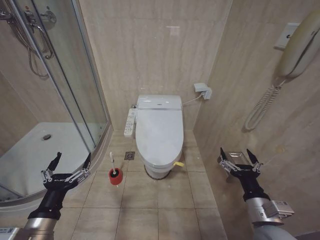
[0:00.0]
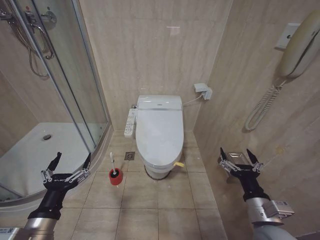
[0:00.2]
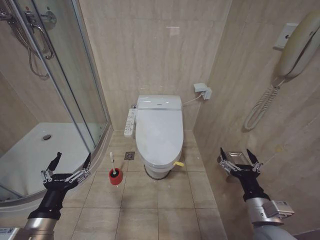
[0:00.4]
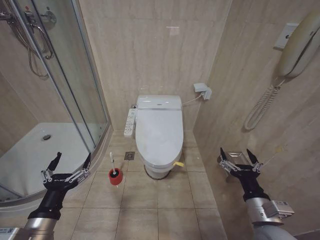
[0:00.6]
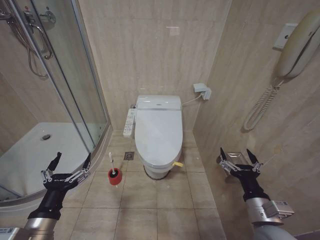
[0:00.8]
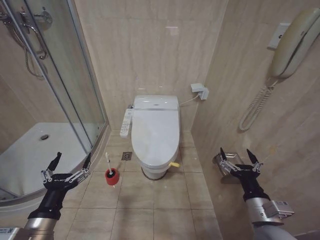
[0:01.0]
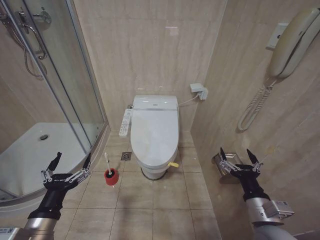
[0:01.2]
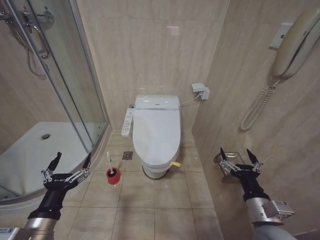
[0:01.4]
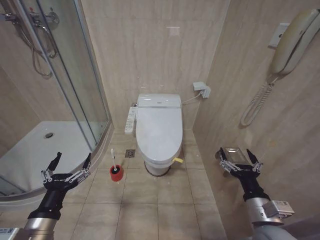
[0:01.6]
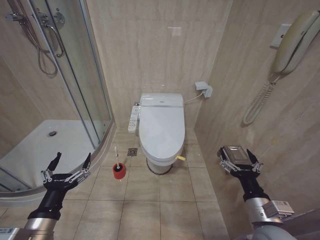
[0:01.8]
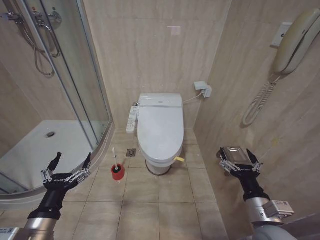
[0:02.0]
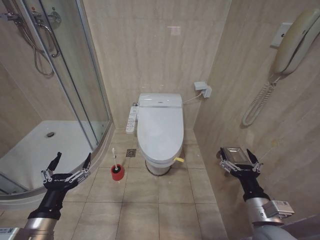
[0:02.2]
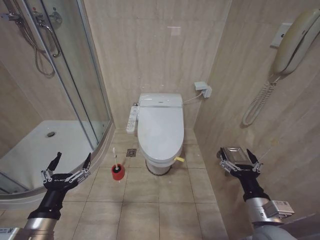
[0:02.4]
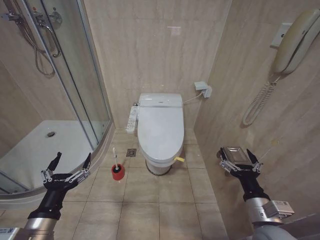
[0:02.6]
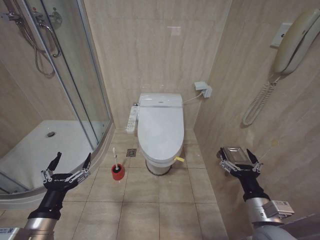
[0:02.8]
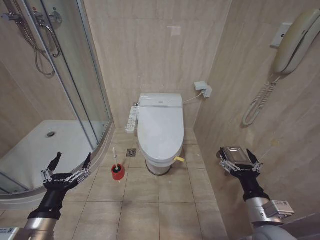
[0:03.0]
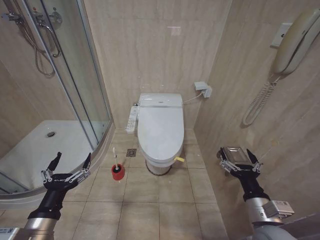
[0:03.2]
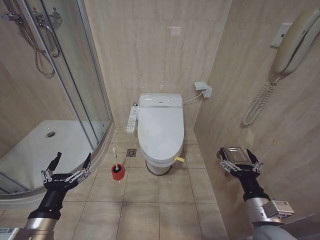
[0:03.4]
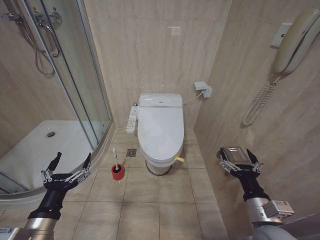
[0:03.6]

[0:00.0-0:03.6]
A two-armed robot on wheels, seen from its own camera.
Task of the whole recording: Open the toilet lid, clean the toilet bowl with a toilet brush, close the toilet lid, and flush.
0:00.0 to 0:03.6: Both grippers stay put.

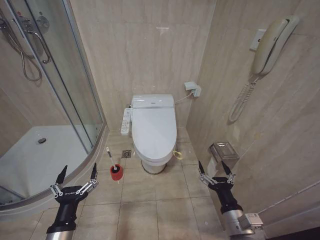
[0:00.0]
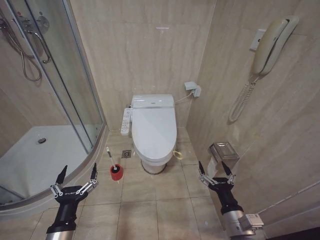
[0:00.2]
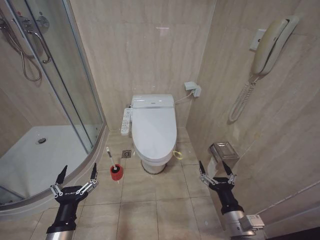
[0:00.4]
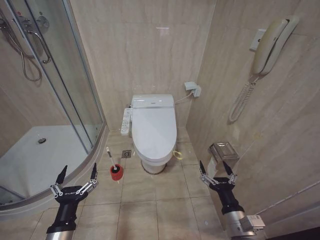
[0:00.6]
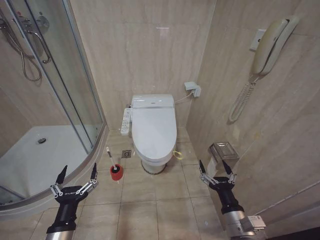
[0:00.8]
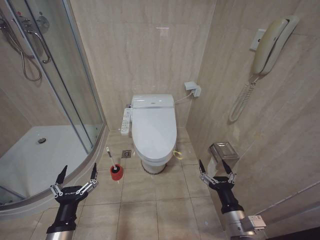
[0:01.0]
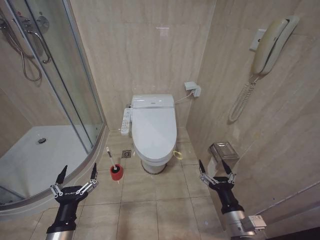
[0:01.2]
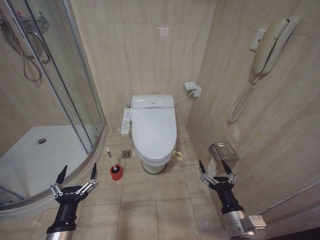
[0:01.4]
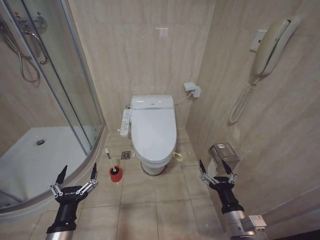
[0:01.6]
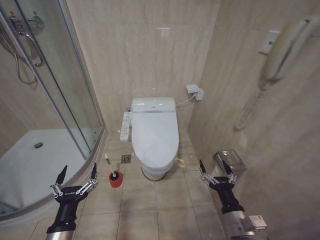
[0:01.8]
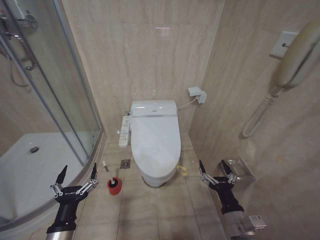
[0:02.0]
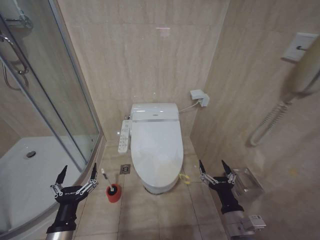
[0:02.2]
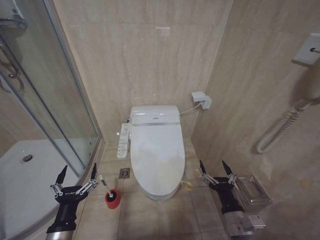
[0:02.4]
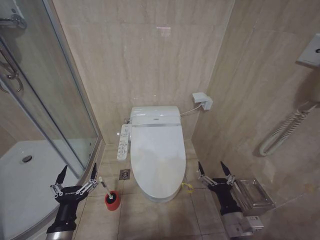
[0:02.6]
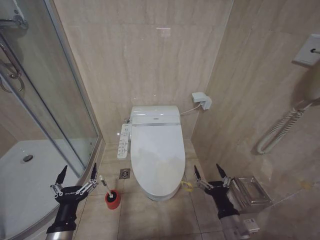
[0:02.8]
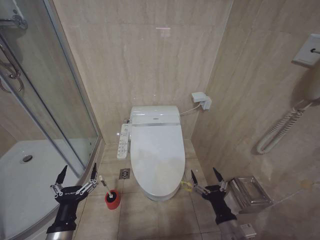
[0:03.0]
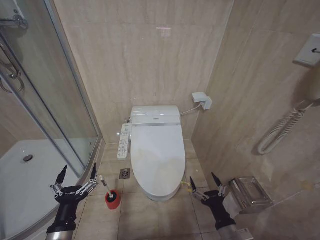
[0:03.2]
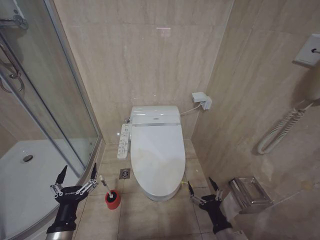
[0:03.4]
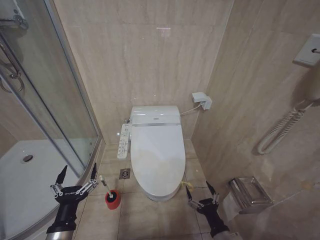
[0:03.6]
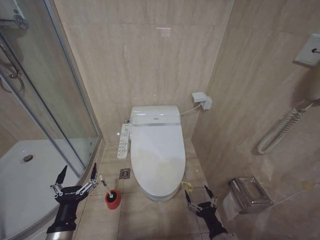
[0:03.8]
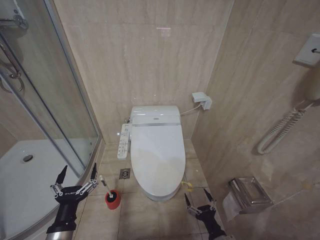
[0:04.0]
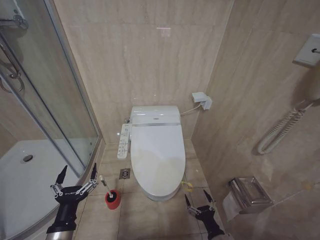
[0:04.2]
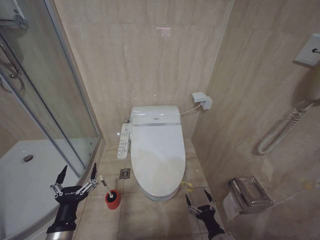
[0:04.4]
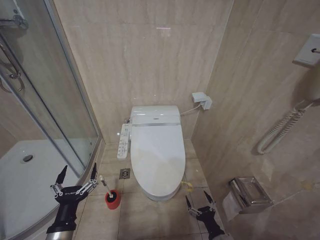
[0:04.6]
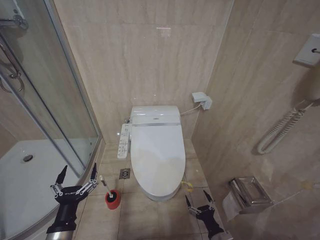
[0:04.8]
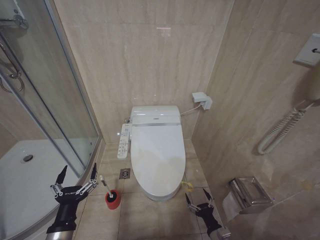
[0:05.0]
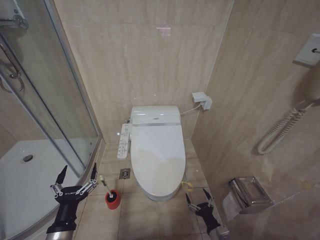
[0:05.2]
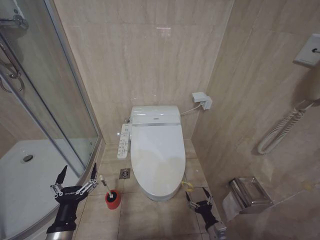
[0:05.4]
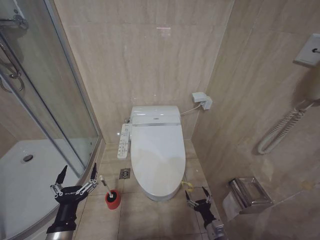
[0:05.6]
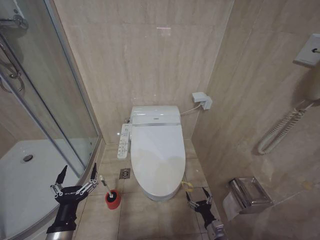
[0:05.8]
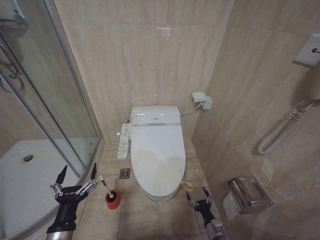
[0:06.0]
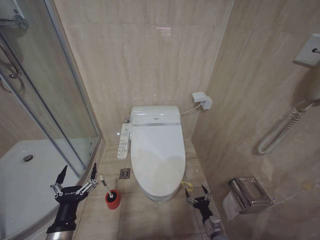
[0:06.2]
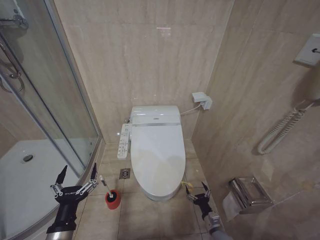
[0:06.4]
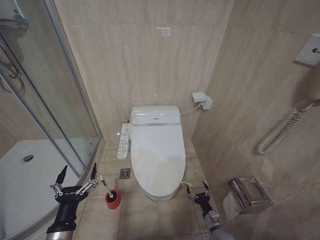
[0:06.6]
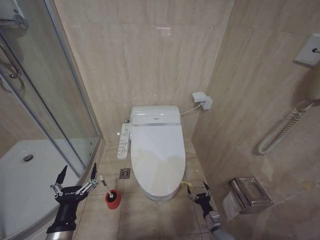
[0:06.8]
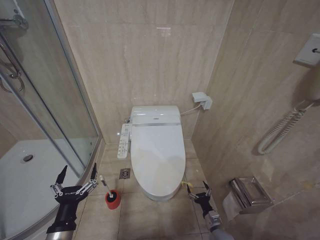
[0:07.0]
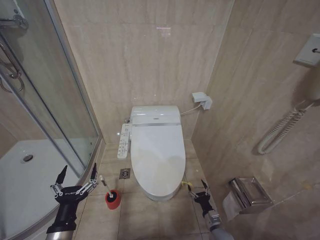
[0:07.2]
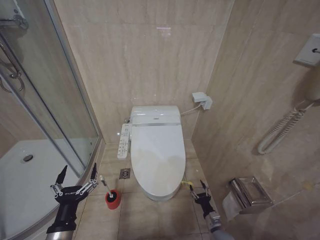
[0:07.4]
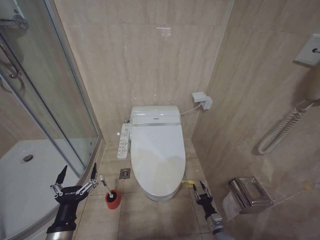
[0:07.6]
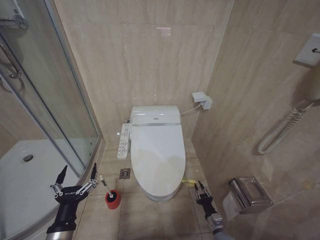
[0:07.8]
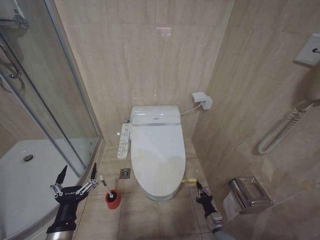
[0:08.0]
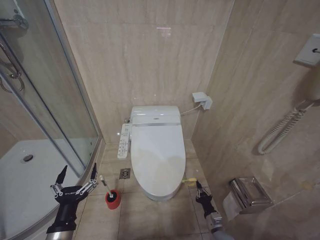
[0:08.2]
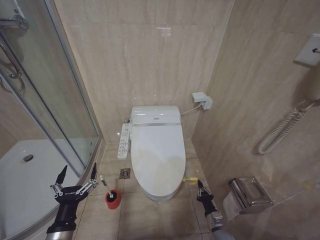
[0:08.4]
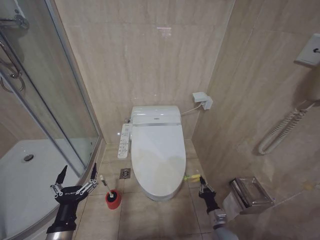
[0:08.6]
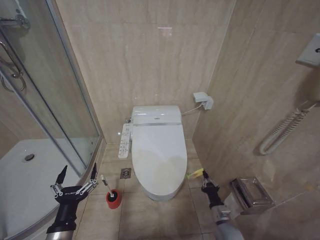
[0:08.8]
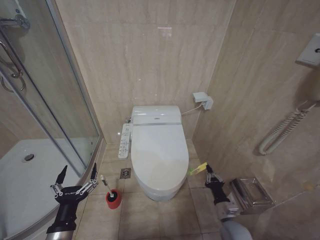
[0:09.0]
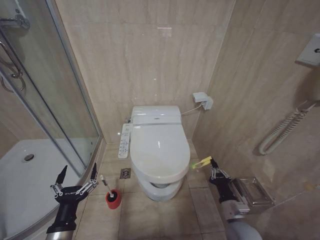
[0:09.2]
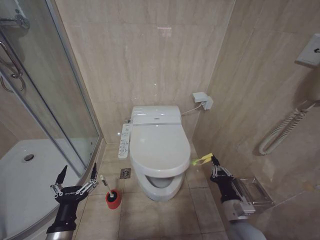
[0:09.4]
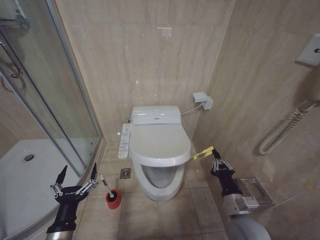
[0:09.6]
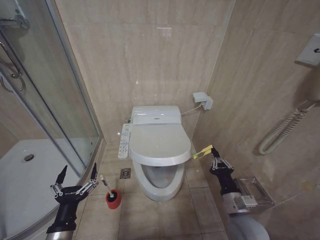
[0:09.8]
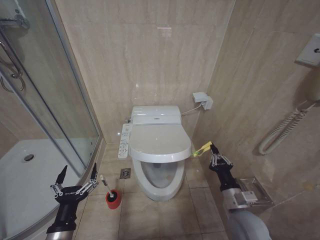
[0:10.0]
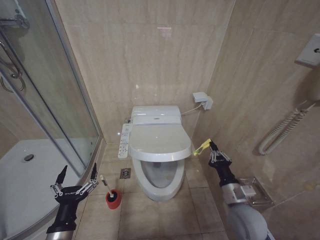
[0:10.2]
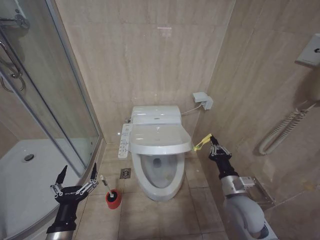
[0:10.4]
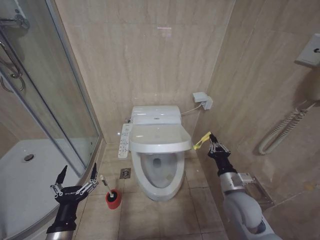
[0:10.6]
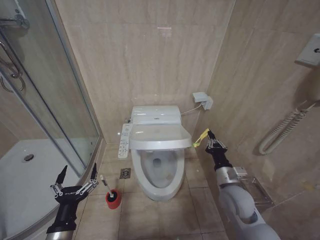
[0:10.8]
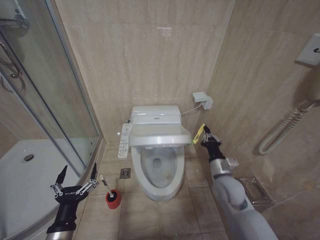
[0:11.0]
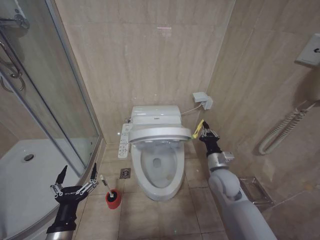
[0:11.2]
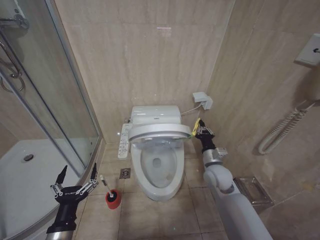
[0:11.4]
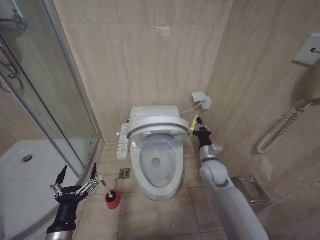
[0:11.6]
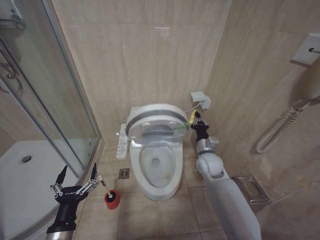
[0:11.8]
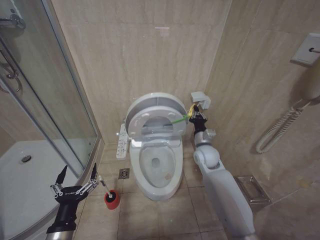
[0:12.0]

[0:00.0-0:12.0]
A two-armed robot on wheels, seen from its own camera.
Task of the whole recording: Open the toilet lid, clean the toilet bowl with a toilet brush, close the toilet lid, and flush.
0:03.0 to 0:04.4: The right gripper shifts about 15 cm downward.
0:07.6 to 0:09.0: The right gripper is displaced upward by about 10 cm, and closes its fingers.
0:09.0 to 0:10.4: The right gripper goes about 20 cm upward.
0:10.4 to 0:12.0: The right gripper goes about 20 cm forward.

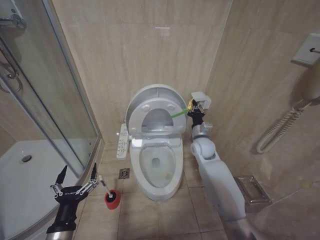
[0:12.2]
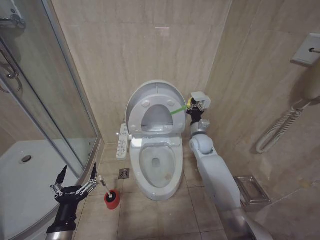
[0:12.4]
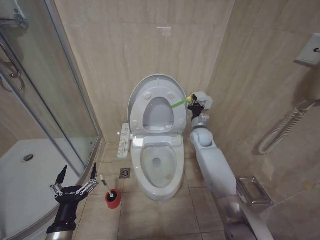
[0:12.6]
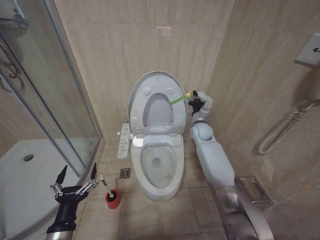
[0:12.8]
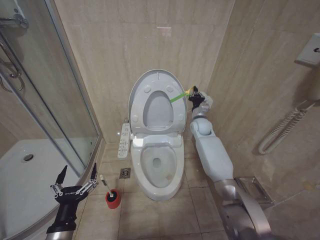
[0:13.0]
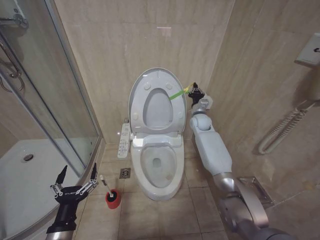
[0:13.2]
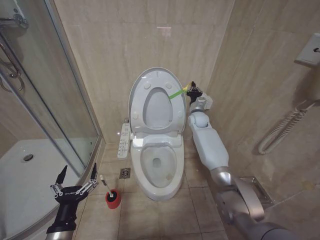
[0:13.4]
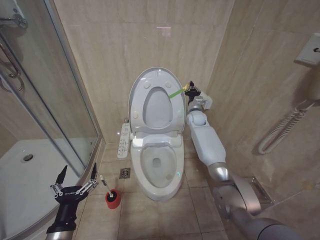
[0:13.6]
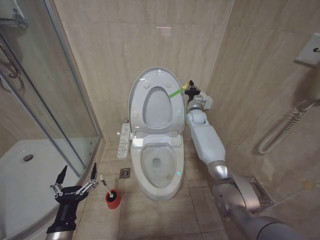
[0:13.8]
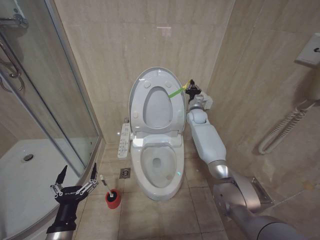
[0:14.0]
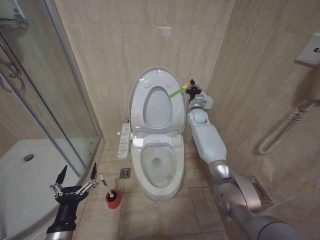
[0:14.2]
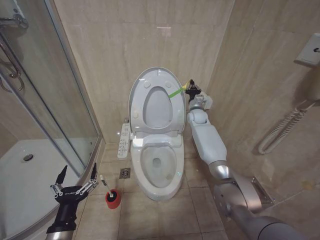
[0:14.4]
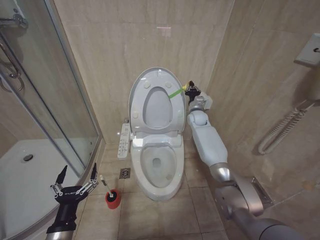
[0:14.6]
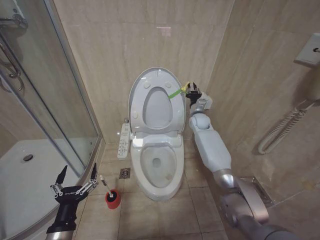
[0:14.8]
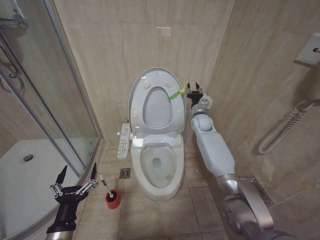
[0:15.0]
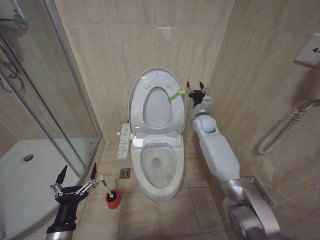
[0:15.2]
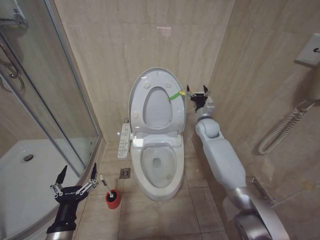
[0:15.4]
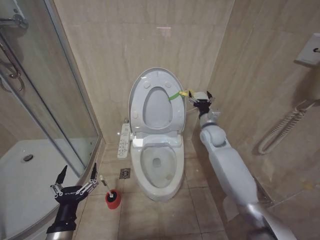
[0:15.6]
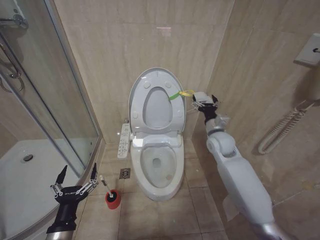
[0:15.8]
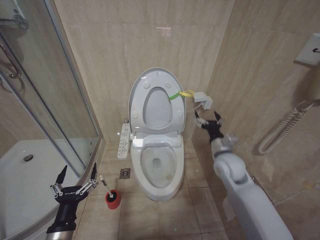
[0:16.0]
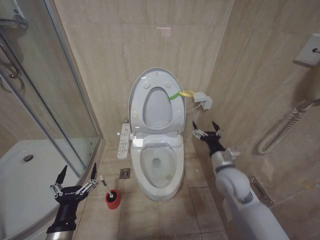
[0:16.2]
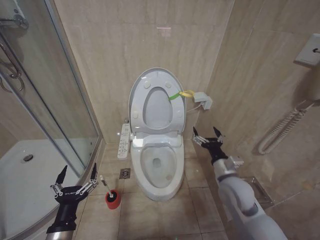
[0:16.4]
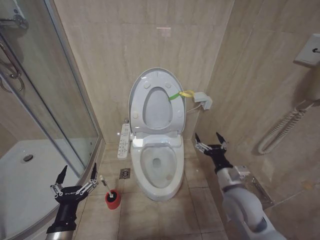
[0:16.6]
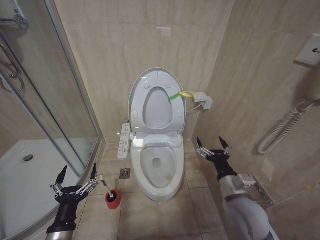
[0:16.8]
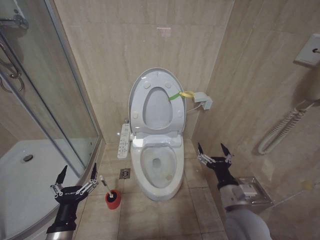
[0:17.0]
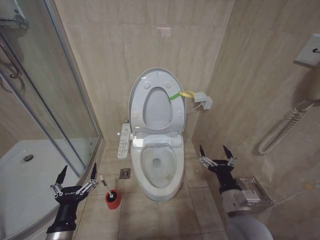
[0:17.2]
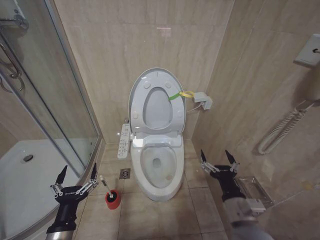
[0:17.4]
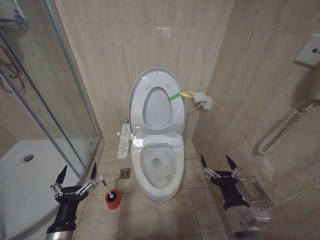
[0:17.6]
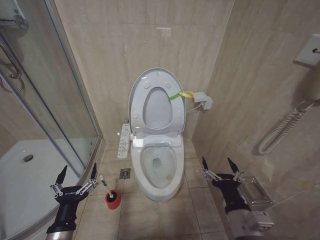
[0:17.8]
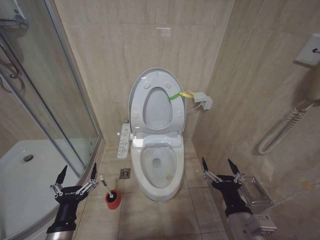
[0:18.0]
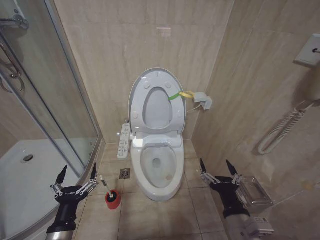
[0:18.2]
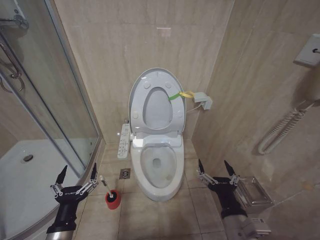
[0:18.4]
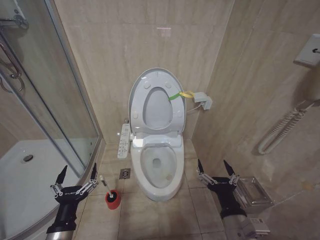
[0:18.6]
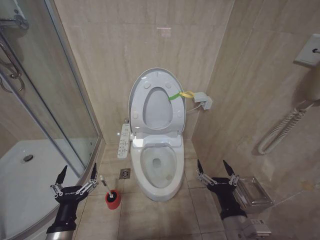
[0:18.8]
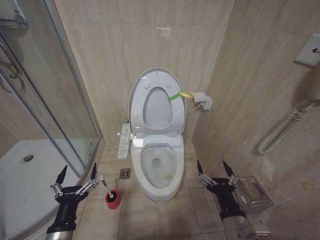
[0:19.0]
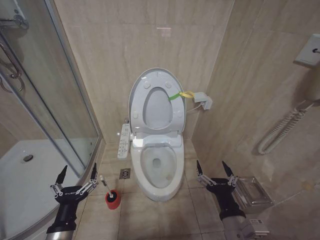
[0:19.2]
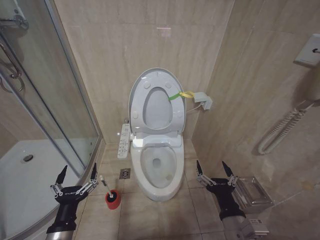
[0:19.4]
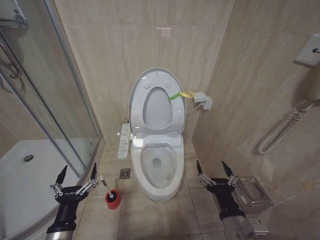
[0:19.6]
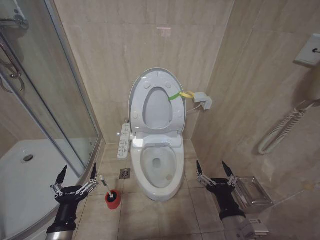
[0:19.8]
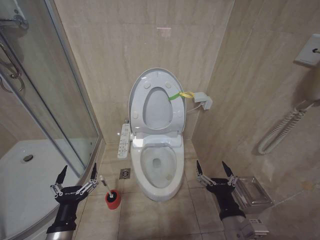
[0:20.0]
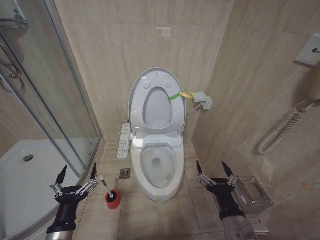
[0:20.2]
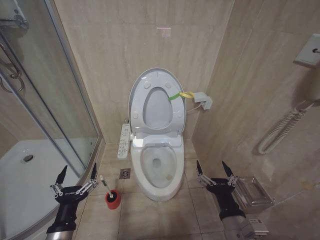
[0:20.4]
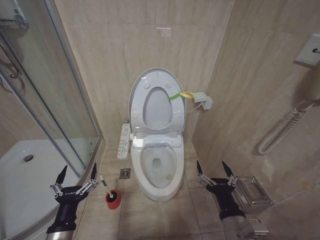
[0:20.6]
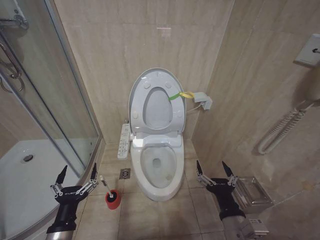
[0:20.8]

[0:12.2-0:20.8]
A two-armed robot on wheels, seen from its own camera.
Task of the whole recording: Open the toilet lid, clean the toilet bowl with a toilet brush, close the toilet lid, and flush.
0:12.2 to 0:13.6: The right gripper shifts some 15 cm forward.
0:13.6 to 0:15.0: There are only small adjustments of the grippers.
0:15.0 to 0:16.6: The right gripper goes some 35 cm backward, and opens.
0:16.6 to 0:18.0: The right gripper shifts some 15 cm backward.
0:18.0 to 0:19.4: There are only small adjustments of the grippers.
0:19.4 to 0:20.8: The two grippers keep their place.
